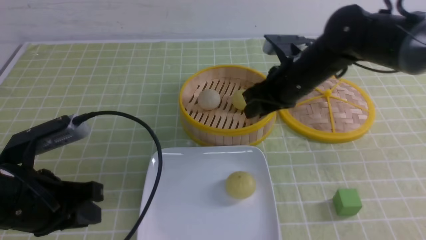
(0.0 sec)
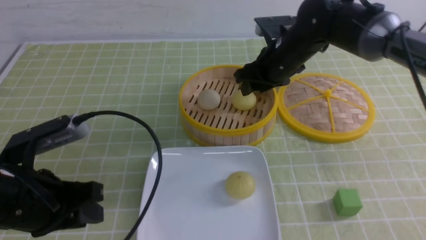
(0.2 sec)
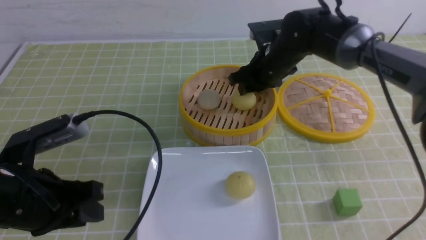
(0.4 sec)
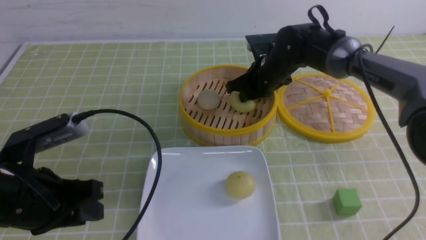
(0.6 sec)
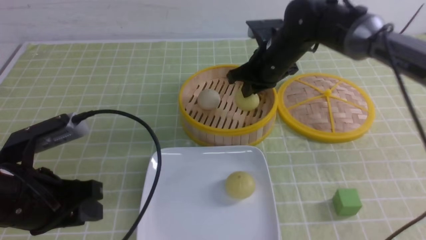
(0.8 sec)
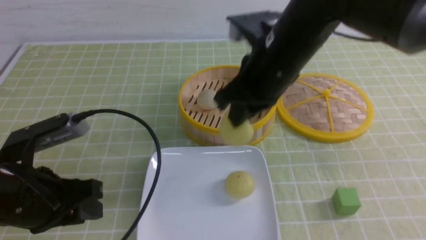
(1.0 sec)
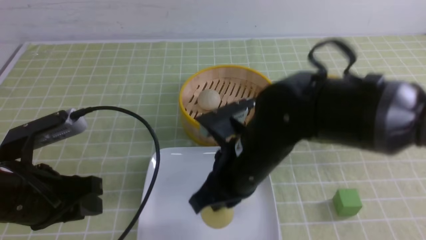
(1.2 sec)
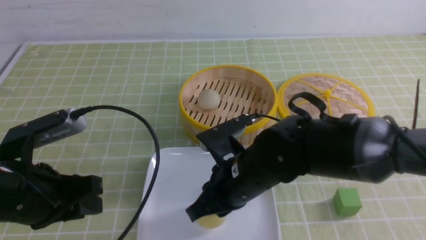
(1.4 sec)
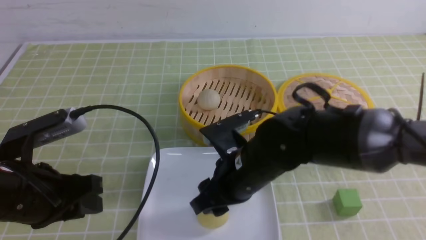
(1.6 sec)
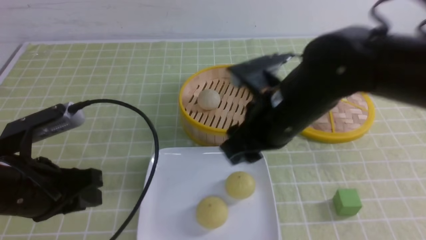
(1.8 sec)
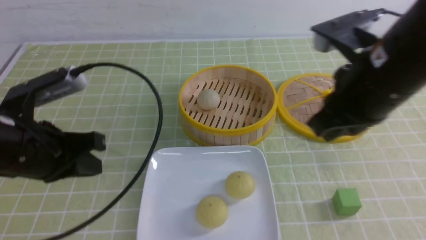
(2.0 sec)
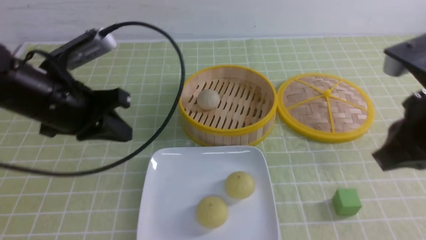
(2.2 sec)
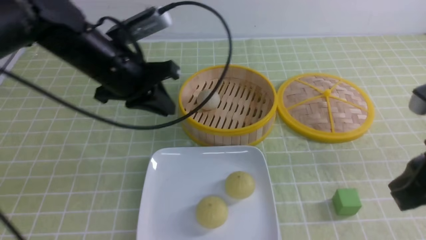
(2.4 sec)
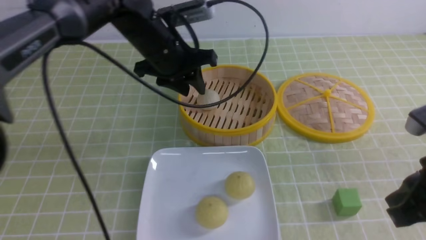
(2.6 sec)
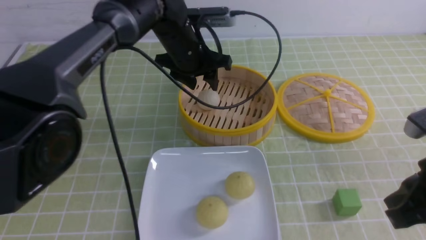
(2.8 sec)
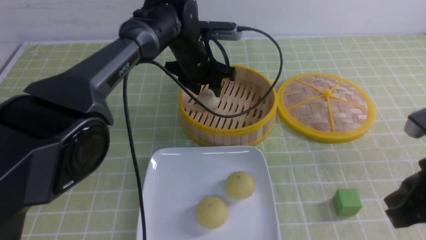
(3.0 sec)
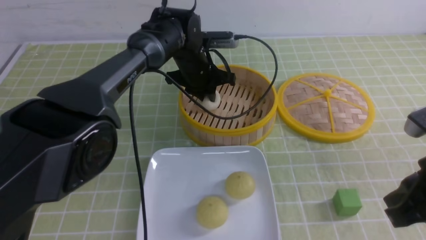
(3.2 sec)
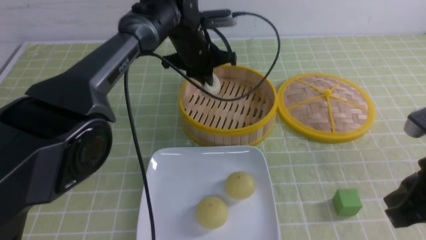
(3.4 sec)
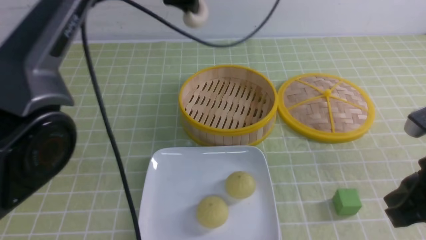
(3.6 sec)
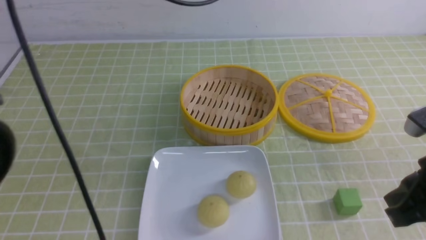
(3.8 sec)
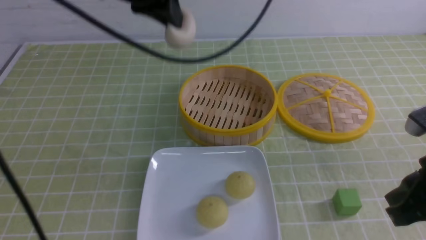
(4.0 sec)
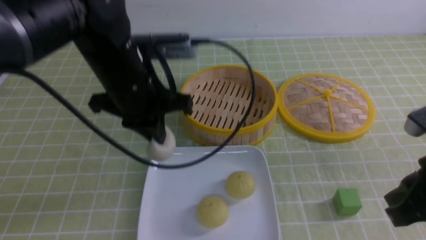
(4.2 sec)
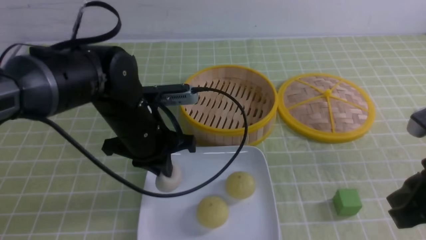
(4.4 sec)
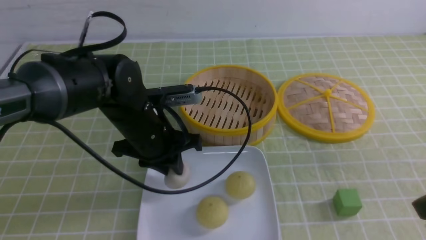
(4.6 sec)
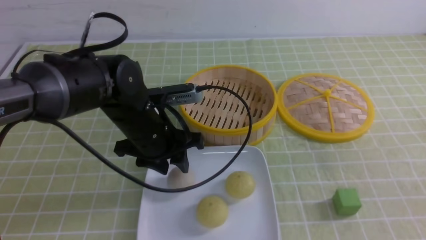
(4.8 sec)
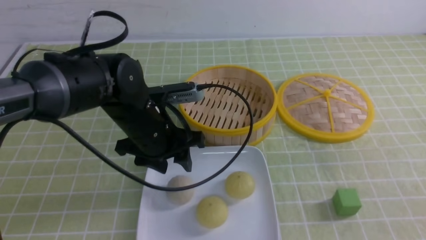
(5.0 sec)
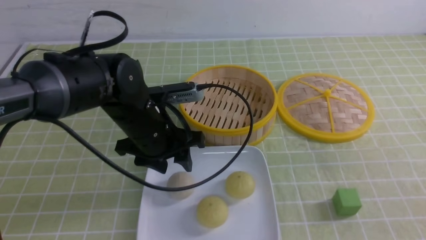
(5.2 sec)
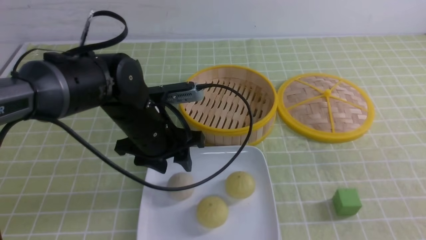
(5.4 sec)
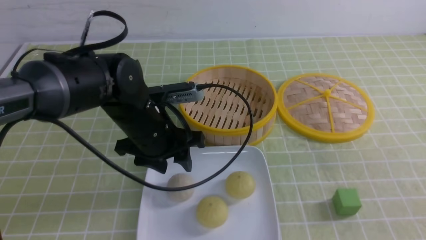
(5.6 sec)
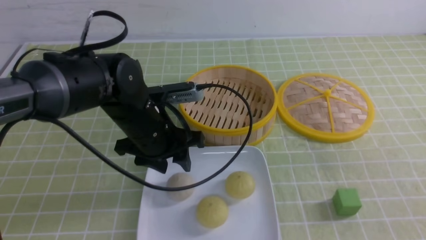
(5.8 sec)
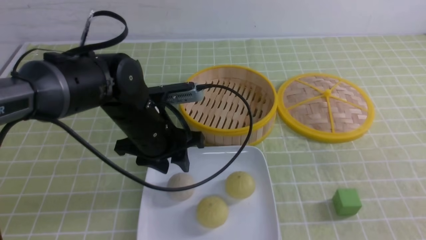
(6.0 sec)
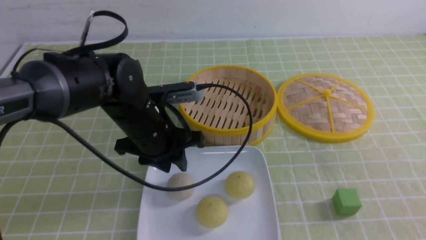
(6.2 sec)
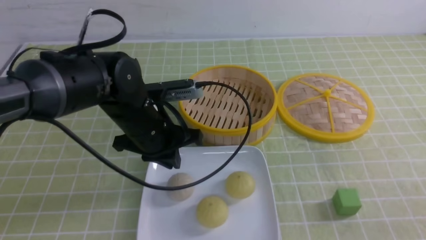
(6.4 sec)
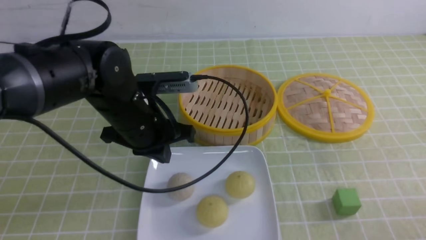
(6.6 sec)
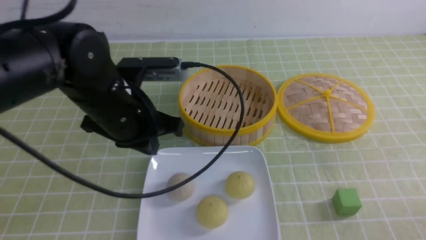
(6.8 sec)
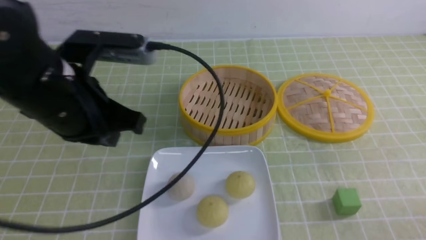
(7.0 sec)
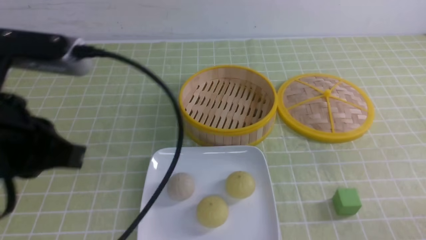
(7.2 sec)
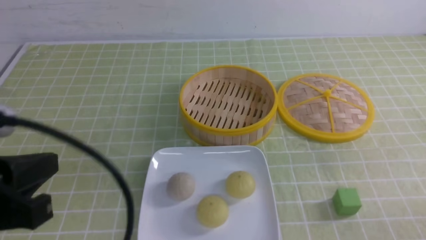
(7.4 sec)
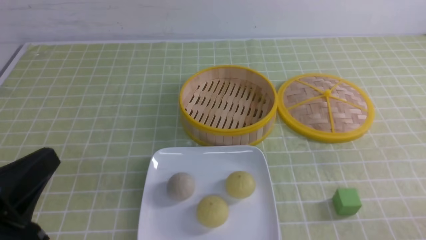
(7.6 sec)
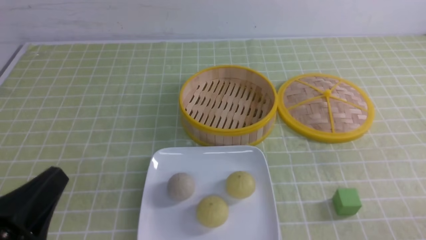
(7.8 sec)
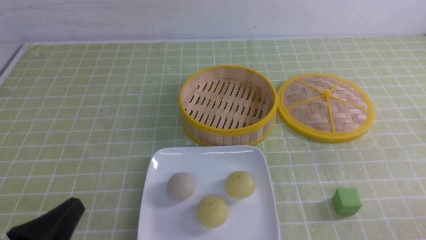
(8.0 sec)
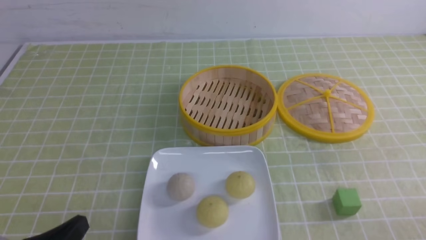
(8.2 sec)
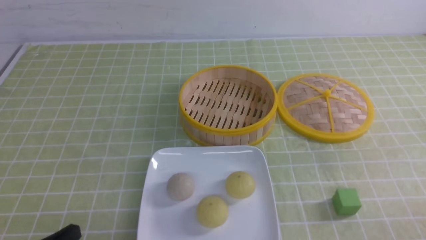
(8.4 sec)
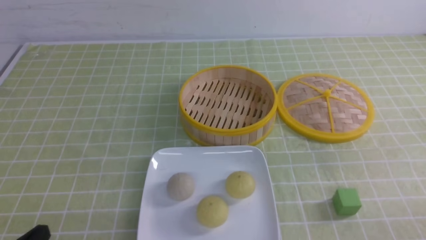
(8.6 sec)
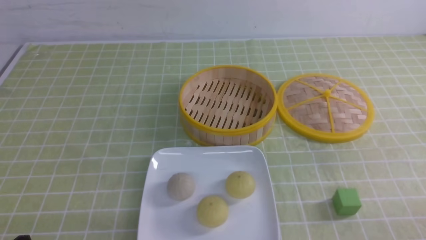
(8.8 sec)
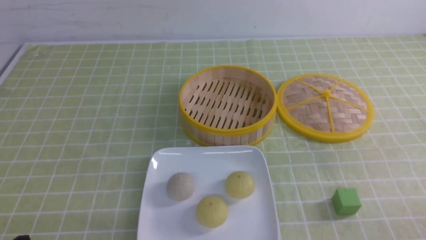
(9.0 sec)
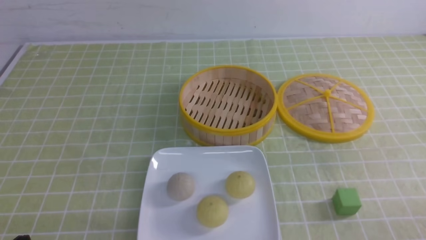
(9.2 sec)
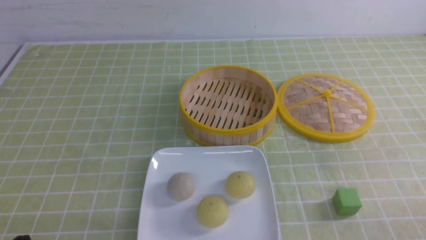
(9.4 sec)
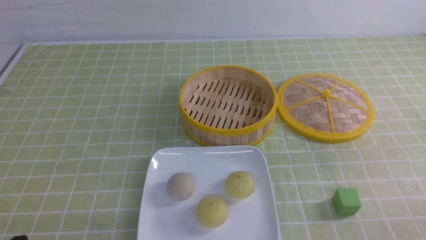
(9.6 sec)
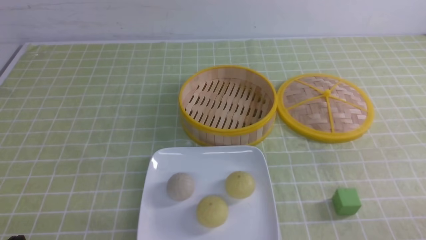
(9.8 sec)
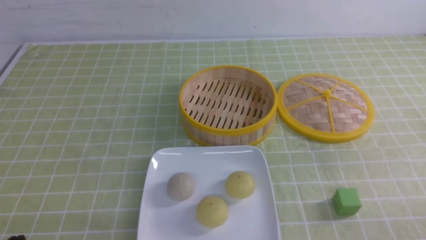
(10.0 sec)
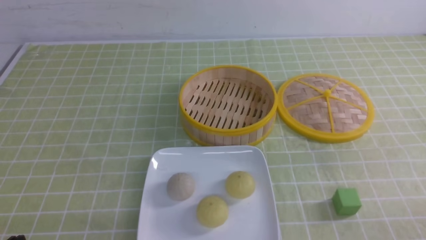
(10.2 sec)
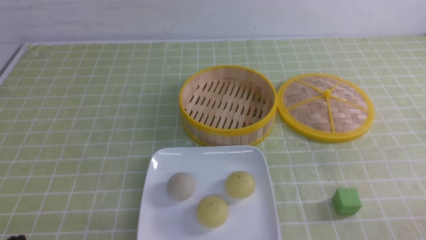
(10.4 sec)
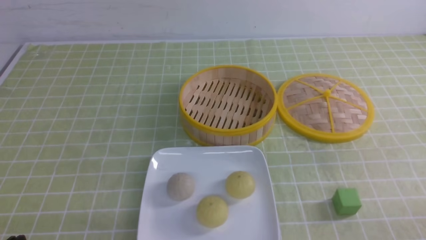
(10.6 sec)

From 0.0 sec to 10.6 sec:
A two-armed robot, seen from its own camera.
Step, from 0.8 sec to 1.4 sec: use the right arm to put the steamed stuffed bun into the plate.
Step, from 1.6 sec to 3.2 sec: use the left arm to grab the steamed stuffed bun that is closest to it.
Step, from 3.4 sec to 4.6 sec: use the left arm to put the steamed stuffed bun into the plate.
From 0.0 sec to 1.6 sec: The right gripper shifts about 15 cm backward and to the left, and closes and opens again.
From 1.6 sec to 3.0 sec: The left gripper moves forward and to the right, about 35 cm, and closes, then opens again; the right gripper heads to the right and backward, covering approximately 20 cm, and closes up.
From 3.0 sec to 4.6 sec: The right gripper ends up some 5 cm from where it was. Meanwhile the left gripper goes roughly 20 cm backward and to the left, travels upward and back again, roughly 20 cm each way, and closes and opens again.
From 4.6 sec to 6.0 sec: The right gripper heads backward, covering roughly 5 cm.
From 6.0 sec to 7.6 sec: The right gripper moves downward, about 10 cm. Meanwhile the left gripper shifts roughly 25 cm backward and to the left, and closes its fingers.
From 7.6 sec to 9.0 sec: The left gripper is displaced downward by about 10 cm.
From 9.0 sec to 10.6 sec: Both grippers stay put.
